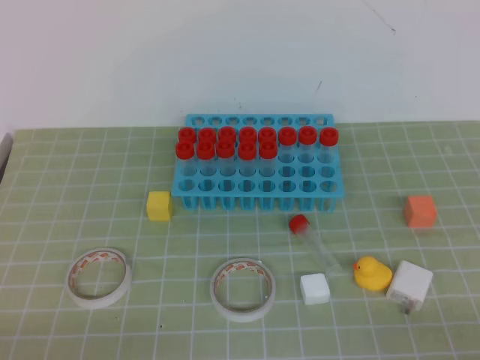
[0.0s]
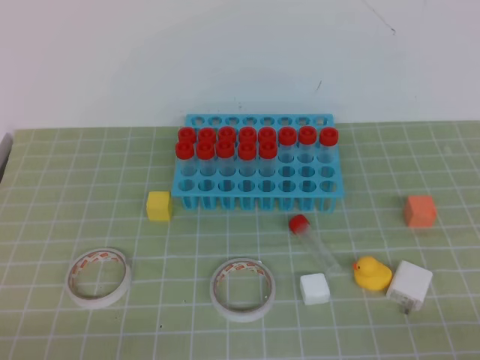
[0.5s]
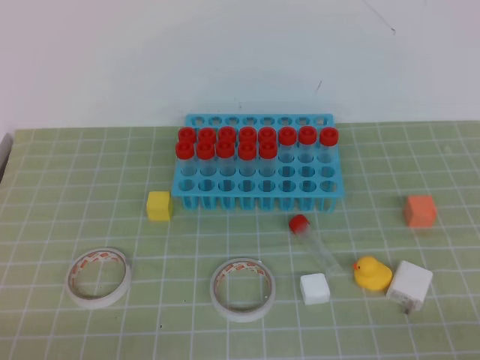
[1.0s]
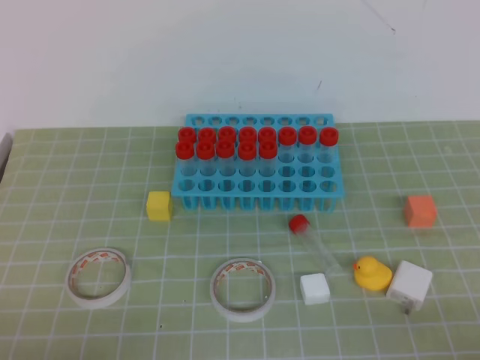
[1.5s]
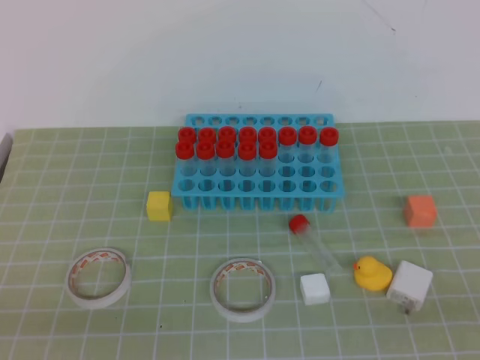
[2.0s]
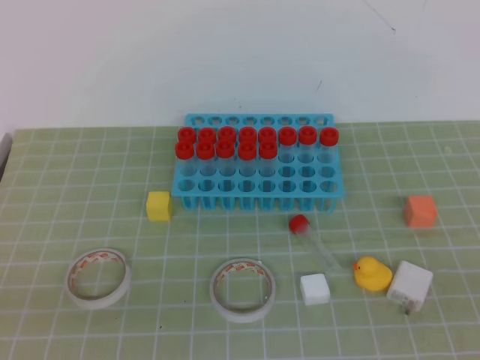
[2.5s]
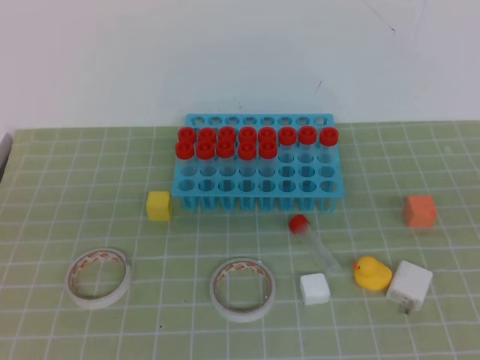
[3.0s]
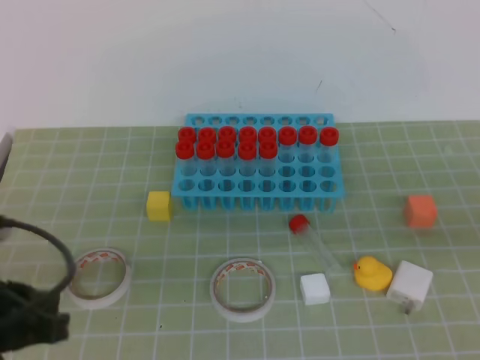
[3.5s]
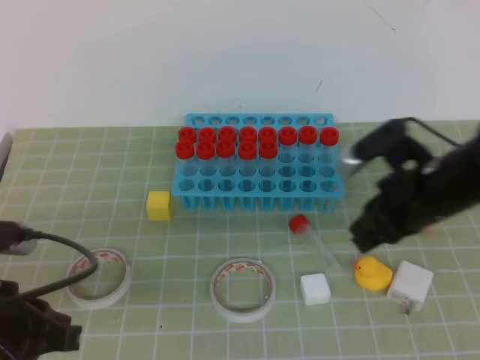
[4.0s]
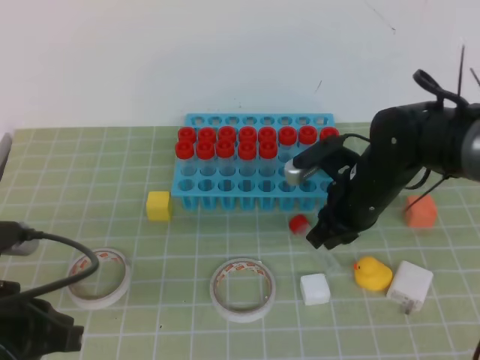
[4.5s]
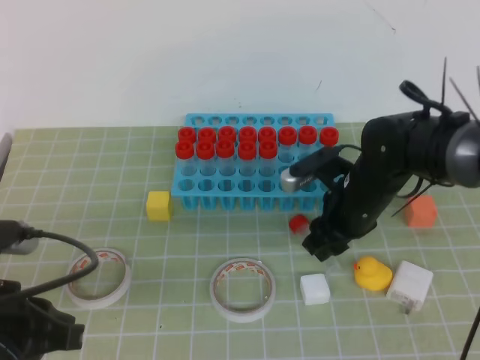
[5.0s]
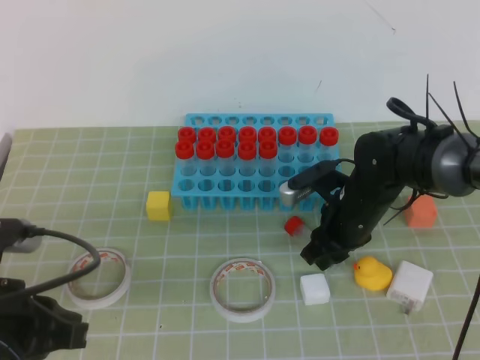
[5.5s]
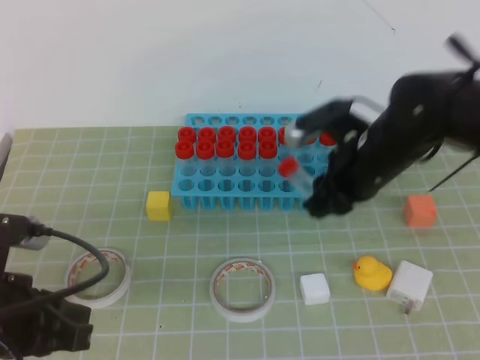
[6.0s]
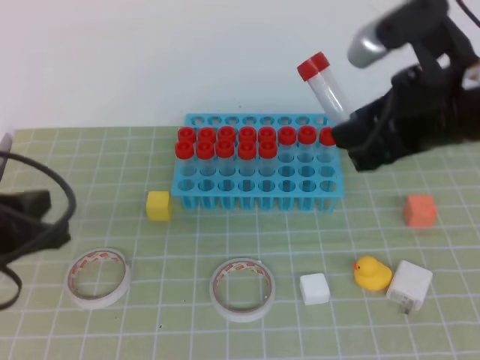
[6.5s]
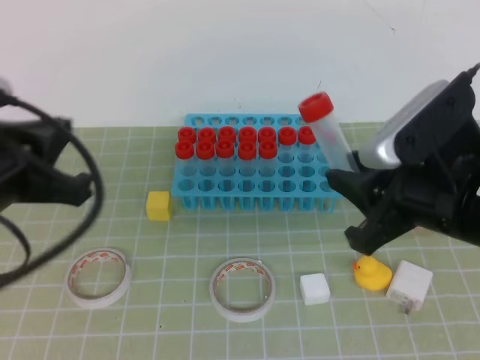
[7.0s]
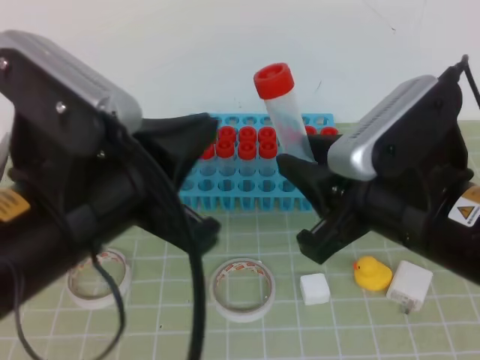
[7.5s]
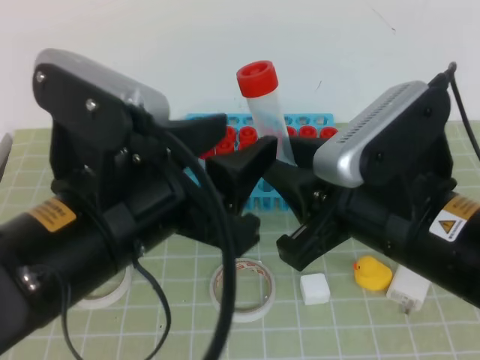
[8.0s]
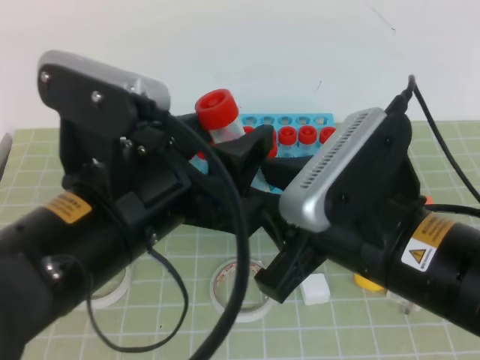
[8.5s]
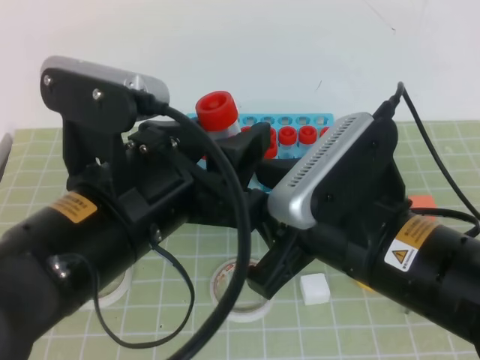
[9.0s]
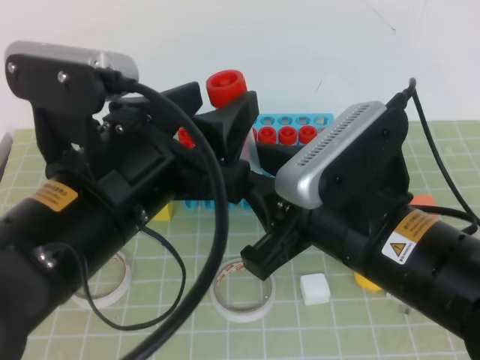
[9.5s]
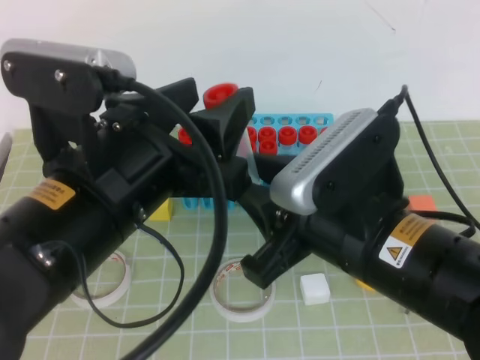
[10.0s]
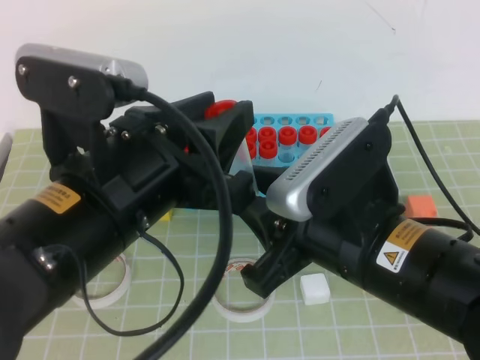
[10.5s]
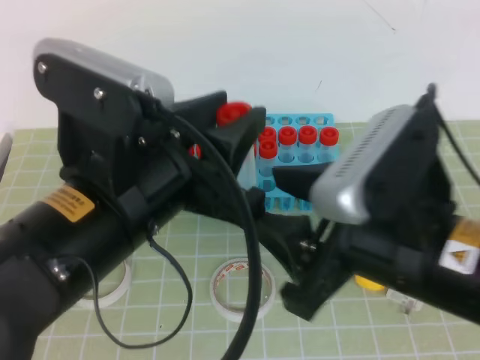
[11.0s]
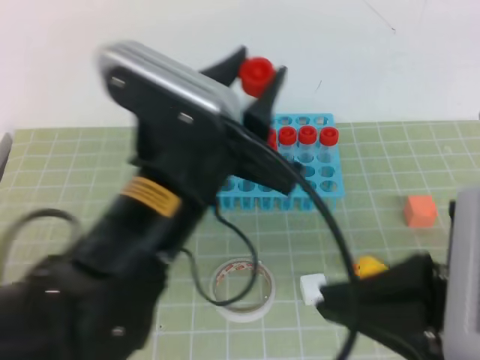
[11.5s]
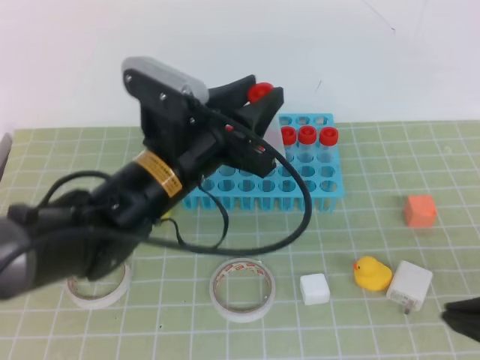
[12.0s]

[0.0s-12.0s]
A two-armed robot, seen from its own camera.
2.0s to 4.0s: The left gripper moves forward, about 10 cm; the right gripper is displaced forward and to the left by roughly 30 cm.
4.0s to 6.0s: The right gripper heads to the left and forward, covering roughly 10 cm, travels downward and back again, some 10 cm each way, and opens.
6.0s to 8.0s: The right gripper heads backward and upward, covering some 20 cm. Meanwhile the left gripper is displaced to the right and upward by roughly 15 cm, and opens its fingers.
10.0s to 12.0s: The right gripper heads to the right and backward, covering some 15 cm, and closes. Meanwhile the left gripper goes some 15 cm forward and downward.

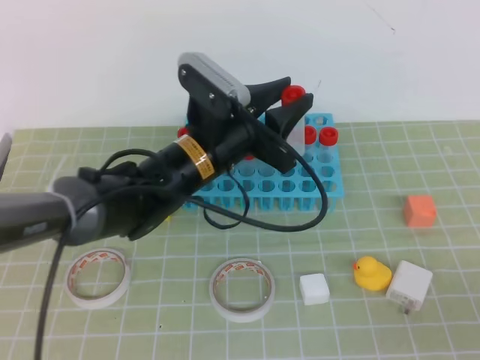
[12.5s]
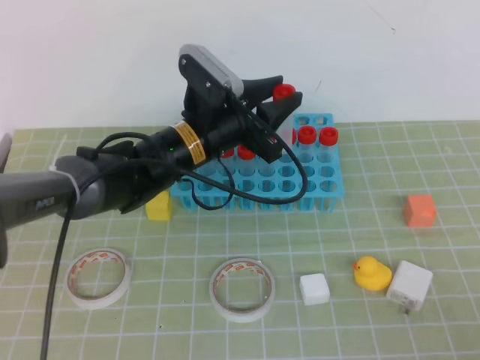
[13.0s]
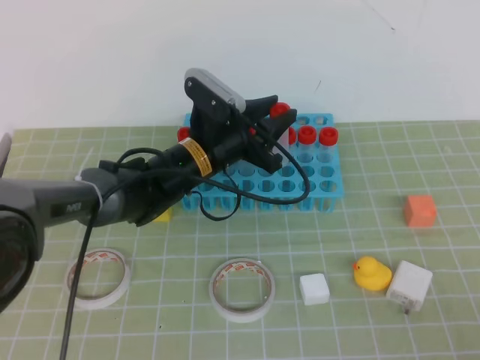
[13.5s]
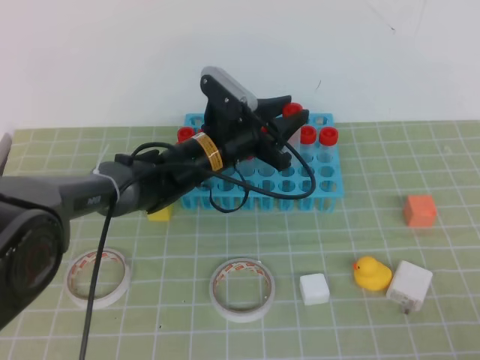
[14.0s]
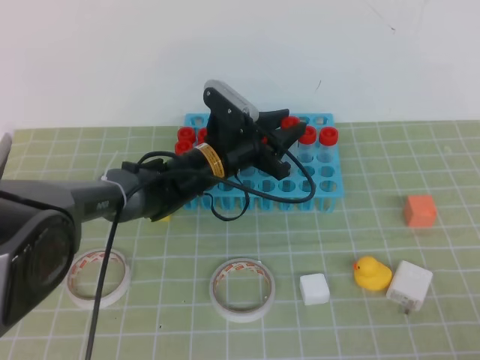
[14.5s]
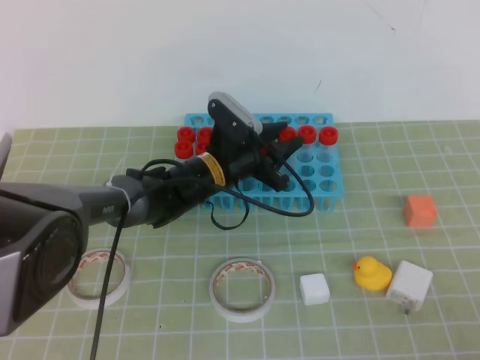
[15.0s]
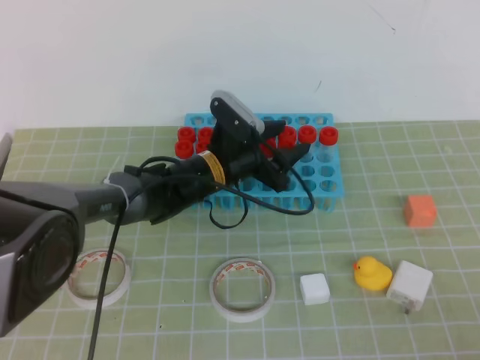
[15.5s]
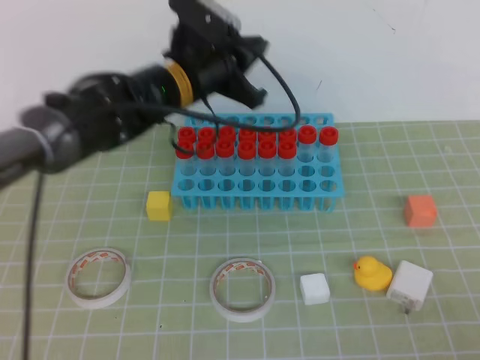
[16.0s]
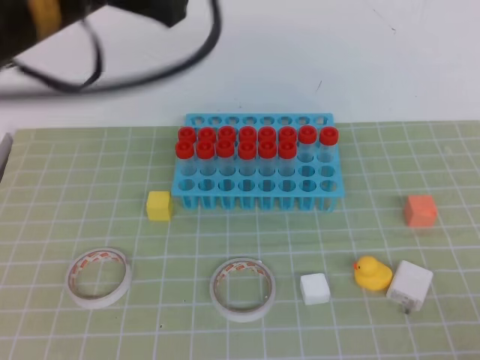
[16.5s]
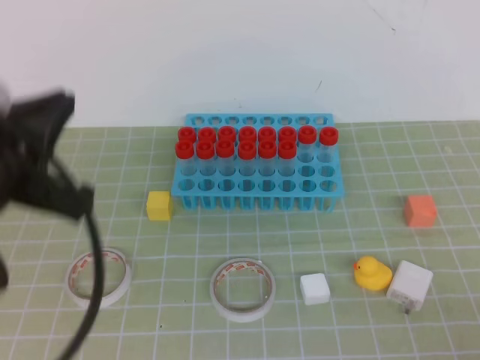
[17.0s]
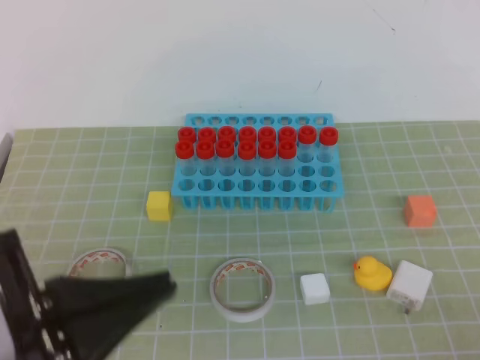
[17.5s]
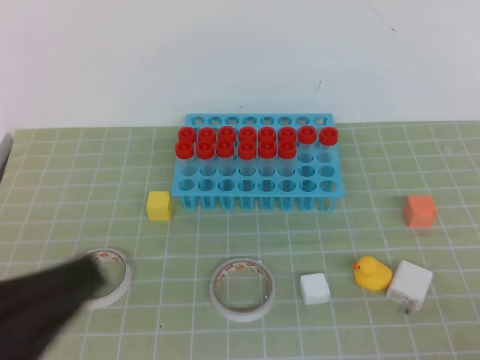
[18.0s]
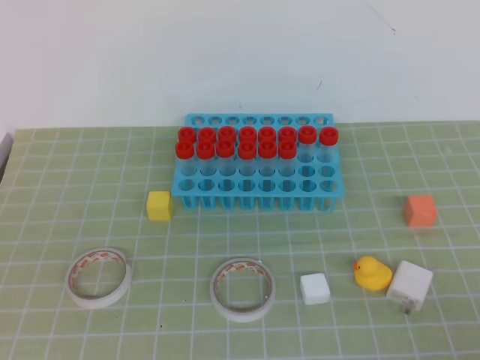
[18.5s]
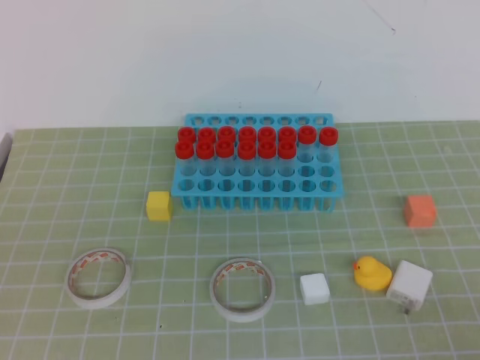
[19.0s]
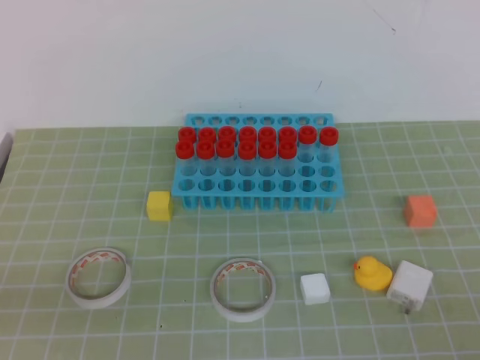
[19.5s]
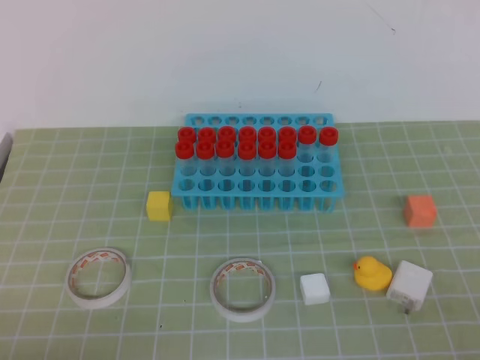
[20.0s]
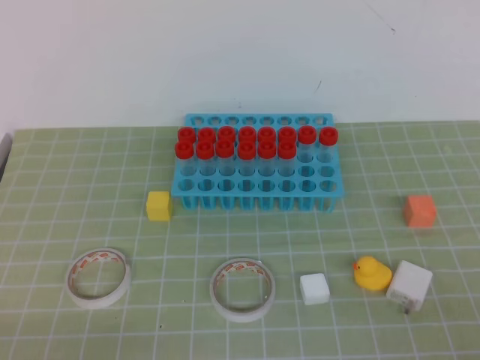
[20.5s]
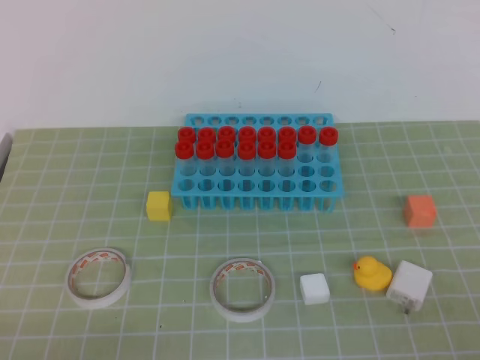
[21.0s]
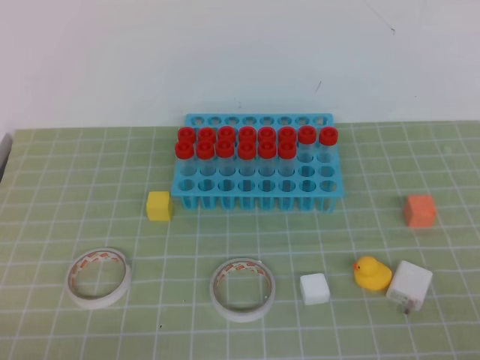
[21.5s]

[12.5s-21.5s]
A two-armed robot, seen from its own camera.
12.5s to 14.5s: The right gripper ends up about 5 cm from where it was, while the left gripper goes some 10 cm forward and downward.
14.5s to 17.0s: The left gripper travels backward, upward and to the left by approximately 35 cm, and closes.
17.0s to 19.5s: The left gripper is displaced backward, downward and to the left by approximately 20 cm.
